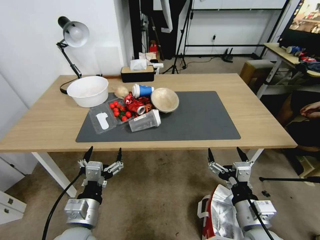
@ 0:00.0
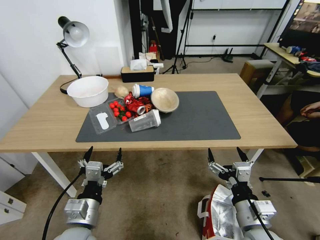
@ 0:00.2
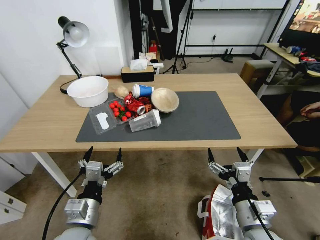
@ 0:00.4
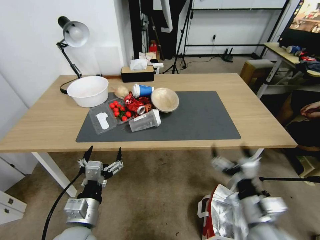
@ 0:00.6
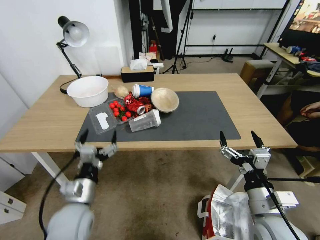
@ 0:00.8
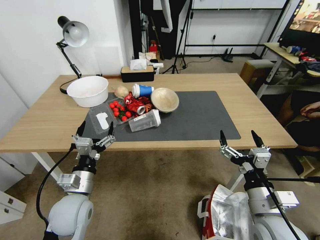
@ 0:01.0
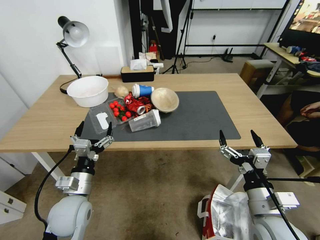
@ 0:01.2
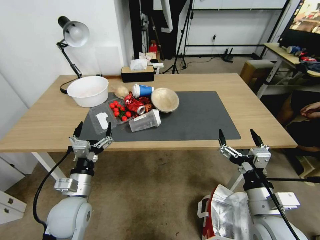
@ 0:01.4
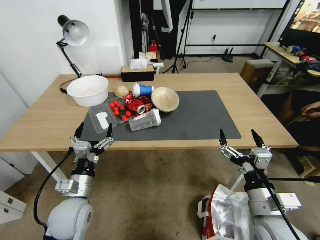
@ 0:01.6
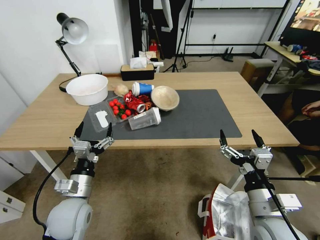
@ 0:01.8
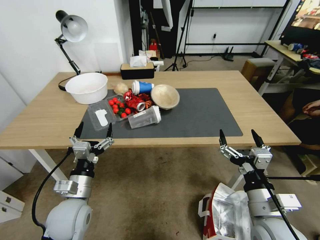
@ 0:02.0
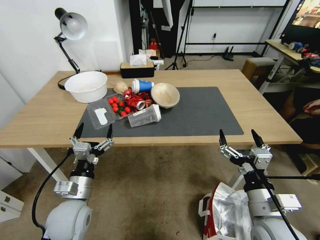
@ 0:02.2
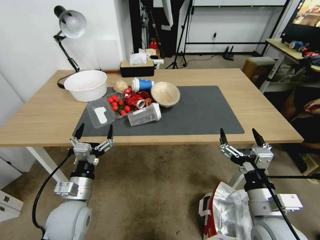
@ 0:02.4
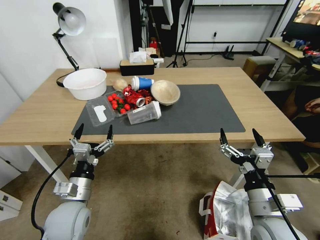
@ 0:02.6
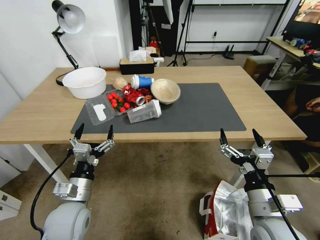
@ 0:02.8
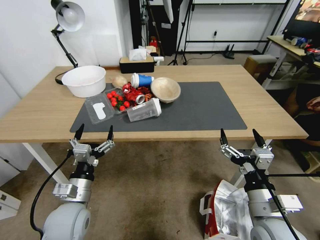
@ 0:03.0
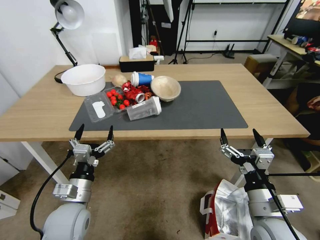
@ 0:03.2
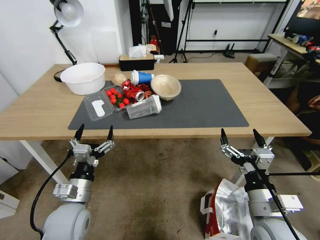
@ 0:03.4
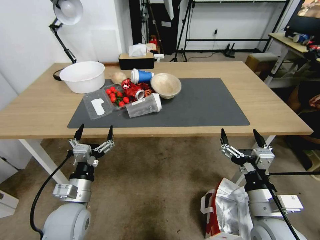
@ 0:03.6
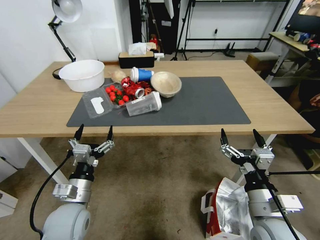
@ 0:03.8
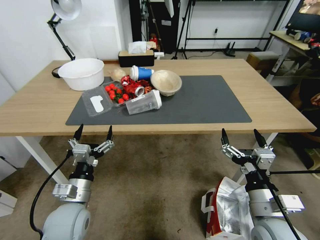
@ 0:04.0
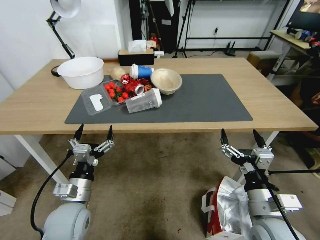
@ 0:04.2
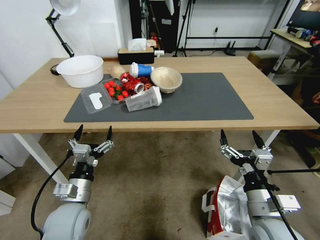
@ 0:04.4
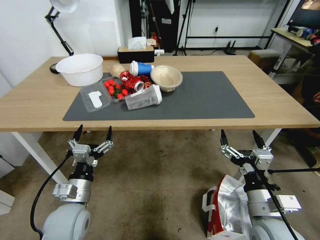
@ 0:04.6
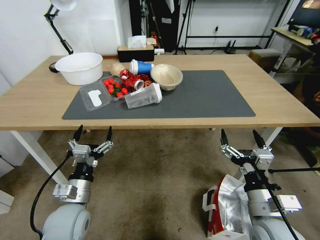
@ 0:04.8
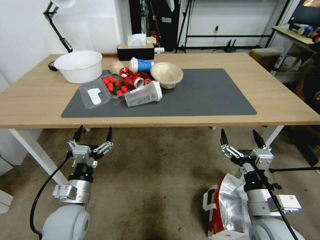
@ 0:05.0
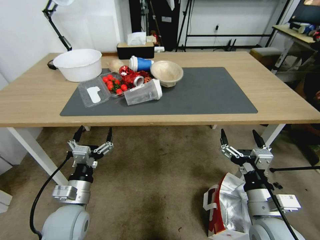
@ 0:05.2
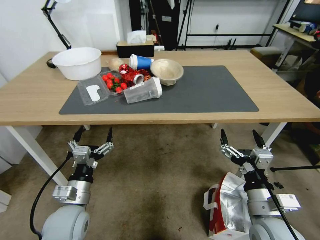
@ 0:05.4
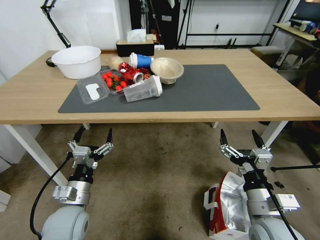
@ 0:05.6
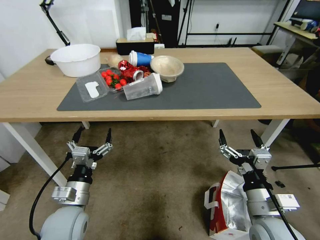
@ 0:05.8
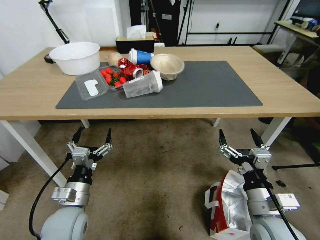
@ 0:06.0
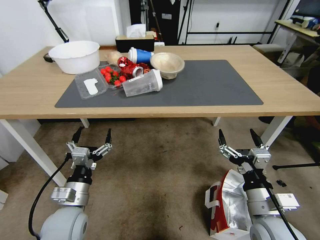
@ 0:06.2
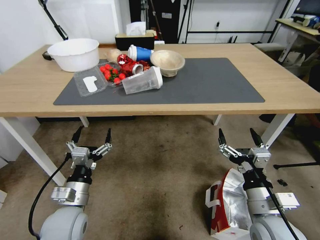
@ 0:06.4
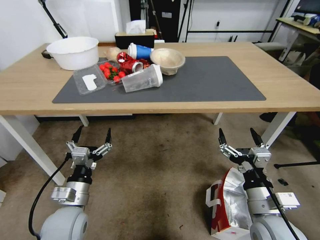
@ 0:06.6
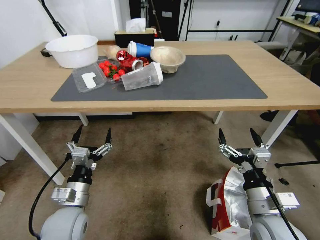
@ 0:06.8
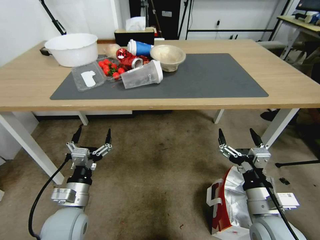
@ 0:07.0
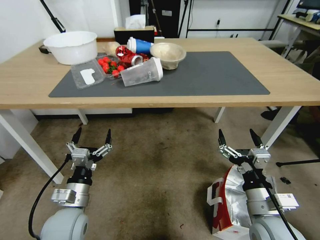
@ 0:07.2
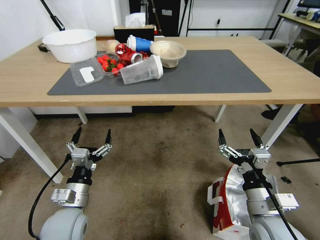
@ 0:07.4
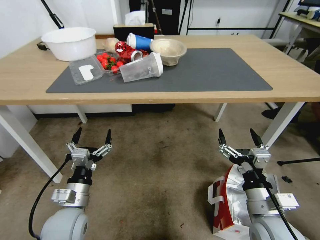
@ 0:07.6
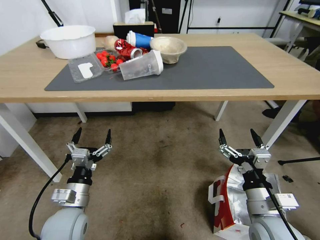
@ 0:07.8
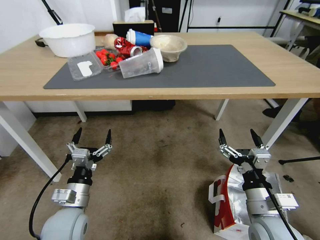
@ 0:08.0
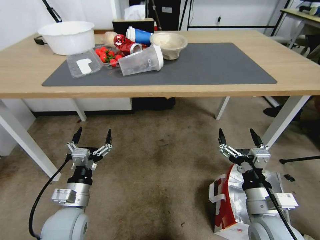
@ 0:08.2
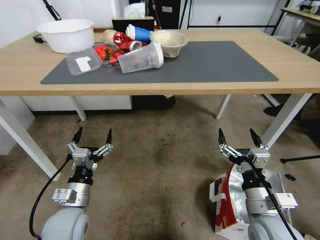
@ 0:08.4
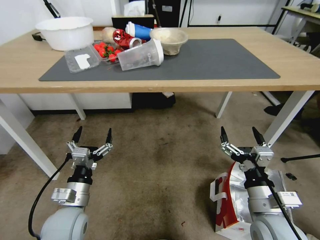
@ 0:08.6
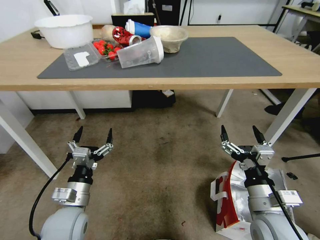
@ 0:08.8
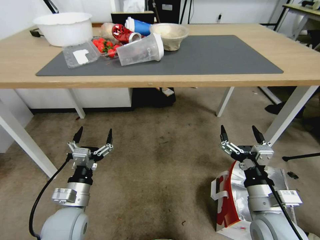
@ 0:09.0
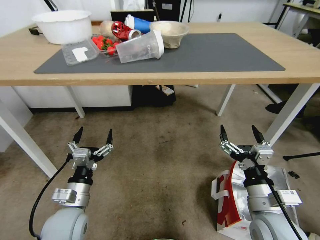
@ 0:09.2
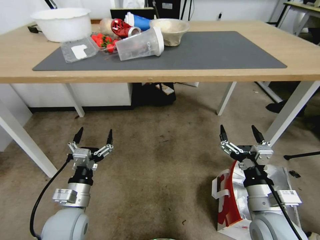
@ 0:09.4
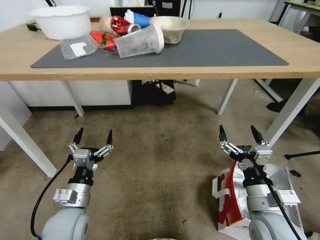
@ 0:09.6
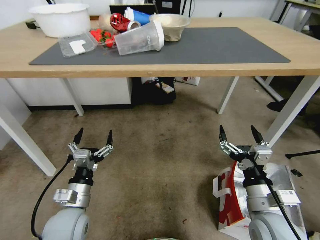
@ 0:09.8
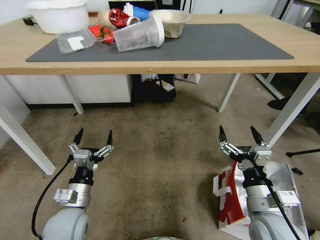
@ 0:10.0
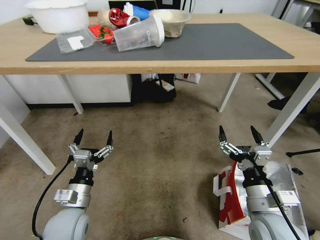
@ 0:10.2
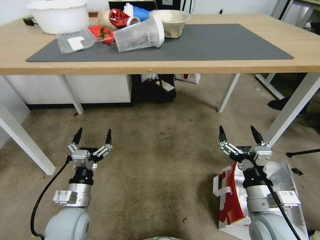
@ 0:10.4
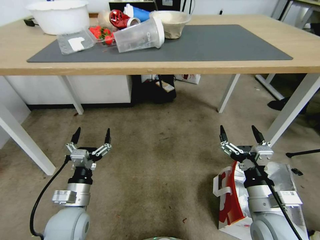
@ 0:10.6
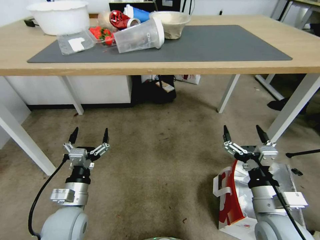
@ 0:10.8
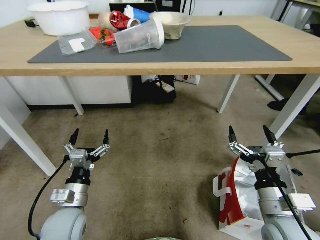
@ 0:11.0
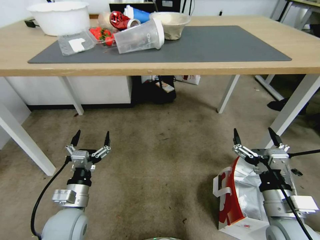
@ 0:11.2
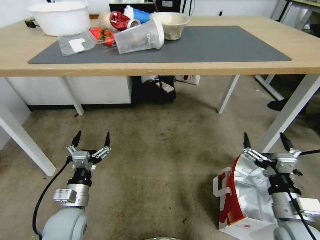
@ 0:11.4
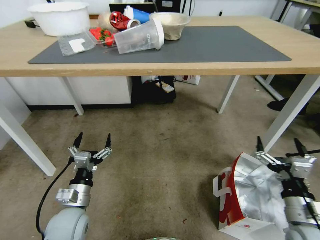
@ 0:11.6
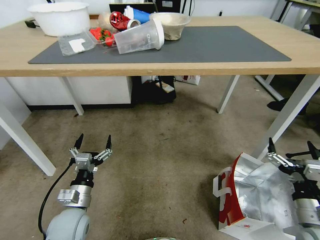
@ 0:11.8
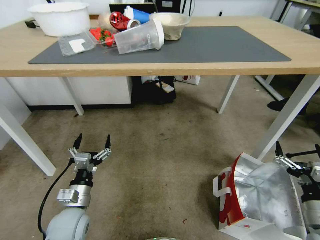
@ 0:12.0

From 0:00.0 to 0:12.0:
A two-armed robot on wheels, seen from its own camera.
Task of the whole recording: Pick up the food delivery bag from the floor and place it on the table.
From 0:10.4 to 0:12.0: The right gripper goes about 15 cm to the right.

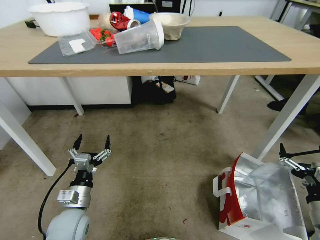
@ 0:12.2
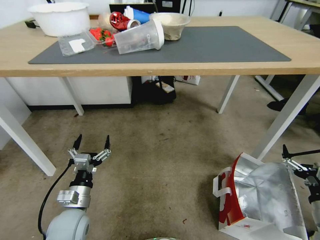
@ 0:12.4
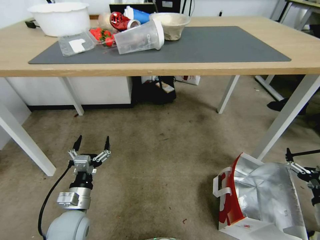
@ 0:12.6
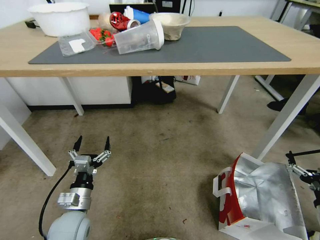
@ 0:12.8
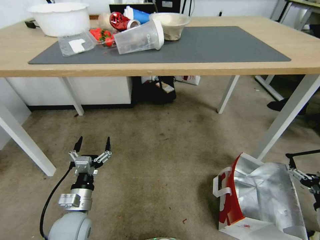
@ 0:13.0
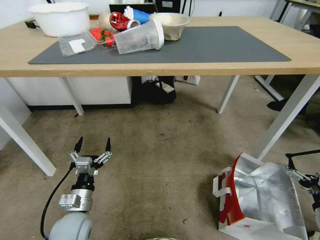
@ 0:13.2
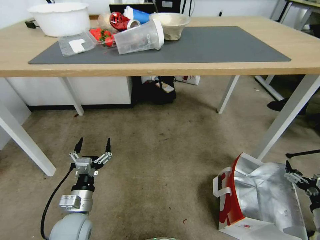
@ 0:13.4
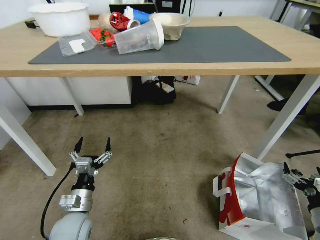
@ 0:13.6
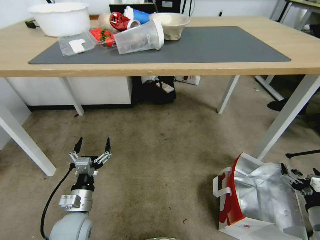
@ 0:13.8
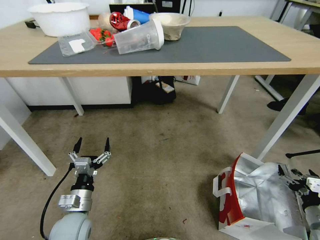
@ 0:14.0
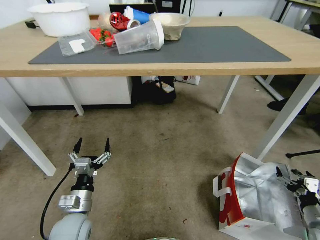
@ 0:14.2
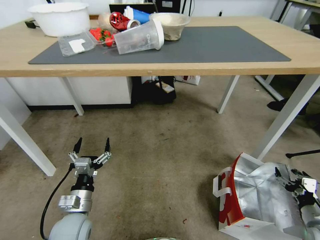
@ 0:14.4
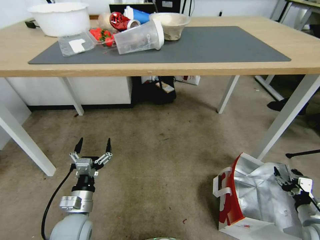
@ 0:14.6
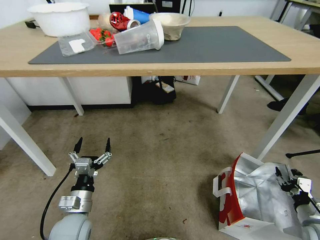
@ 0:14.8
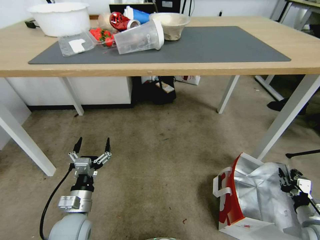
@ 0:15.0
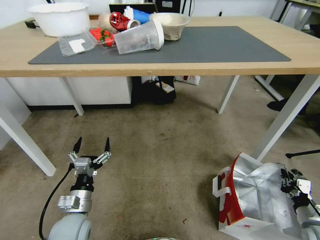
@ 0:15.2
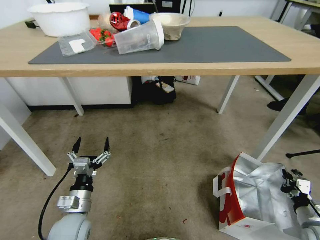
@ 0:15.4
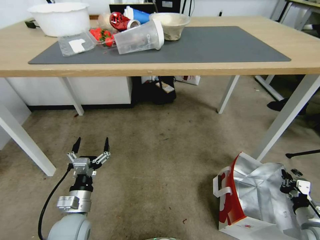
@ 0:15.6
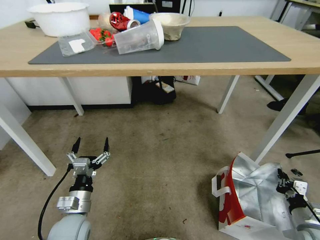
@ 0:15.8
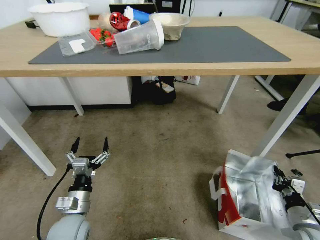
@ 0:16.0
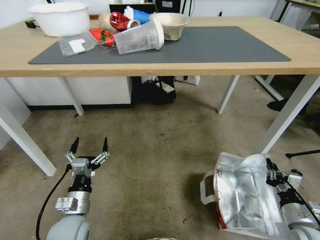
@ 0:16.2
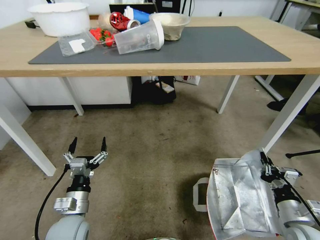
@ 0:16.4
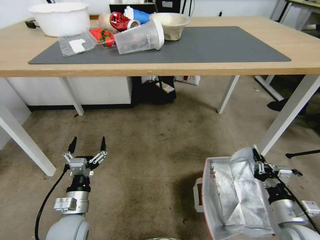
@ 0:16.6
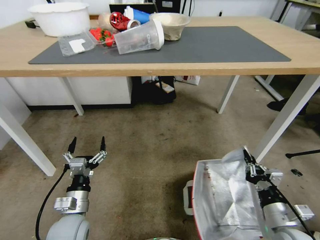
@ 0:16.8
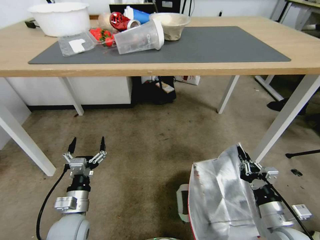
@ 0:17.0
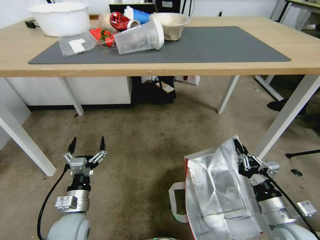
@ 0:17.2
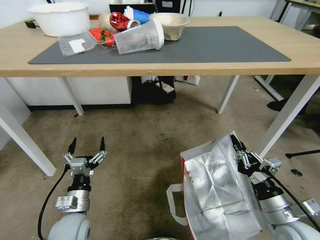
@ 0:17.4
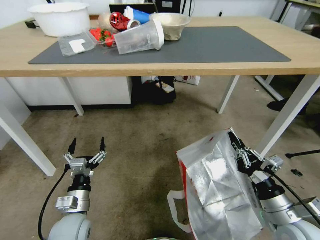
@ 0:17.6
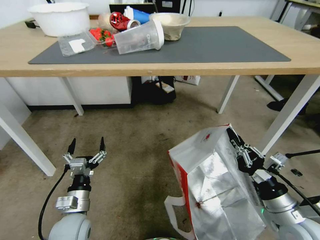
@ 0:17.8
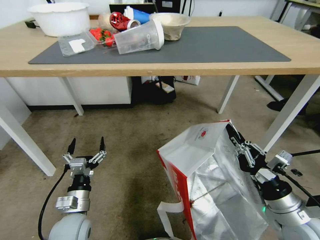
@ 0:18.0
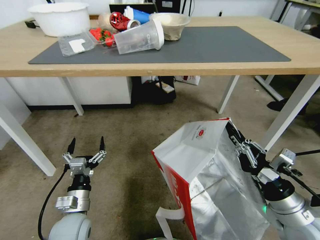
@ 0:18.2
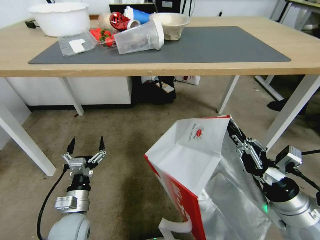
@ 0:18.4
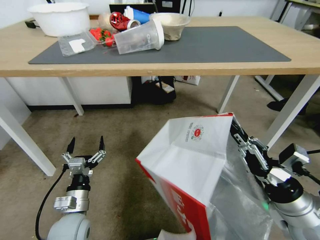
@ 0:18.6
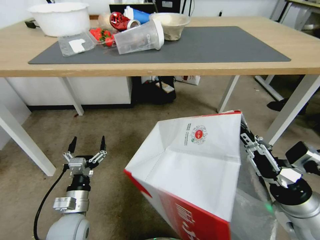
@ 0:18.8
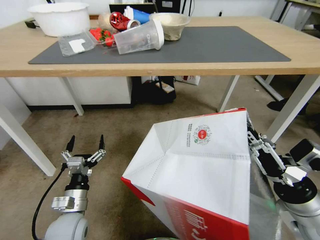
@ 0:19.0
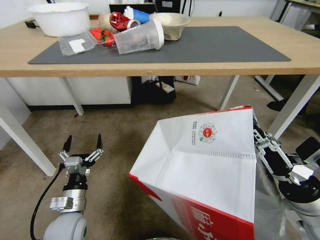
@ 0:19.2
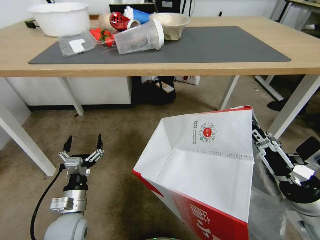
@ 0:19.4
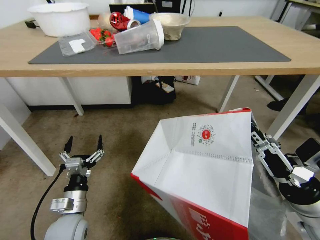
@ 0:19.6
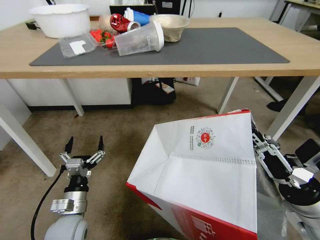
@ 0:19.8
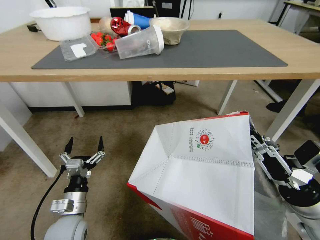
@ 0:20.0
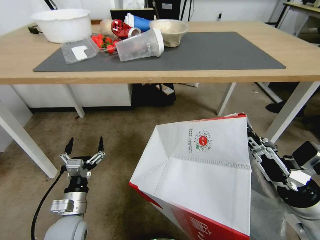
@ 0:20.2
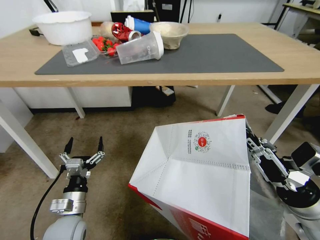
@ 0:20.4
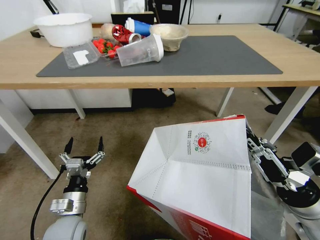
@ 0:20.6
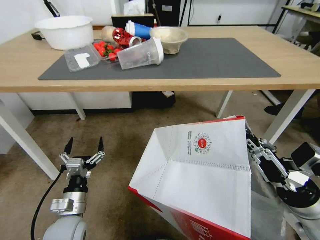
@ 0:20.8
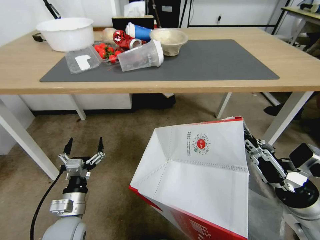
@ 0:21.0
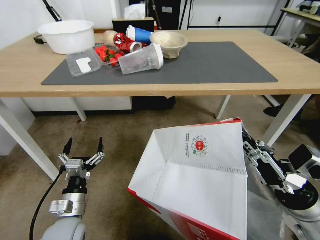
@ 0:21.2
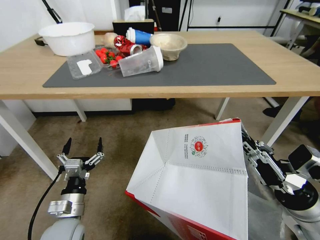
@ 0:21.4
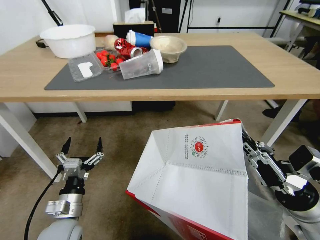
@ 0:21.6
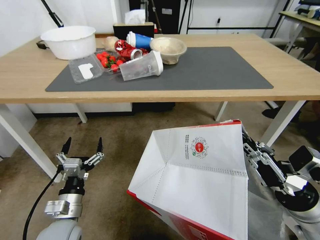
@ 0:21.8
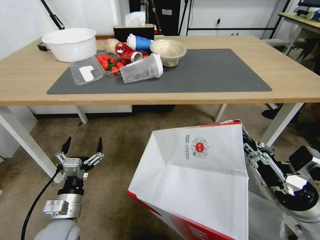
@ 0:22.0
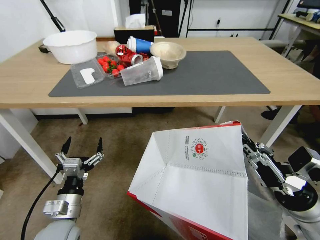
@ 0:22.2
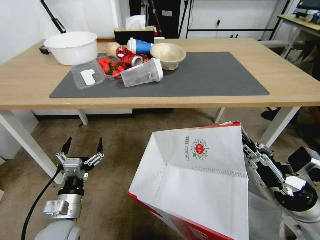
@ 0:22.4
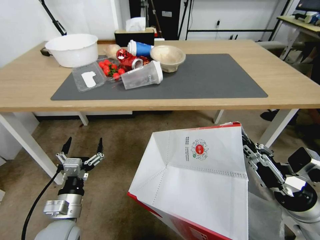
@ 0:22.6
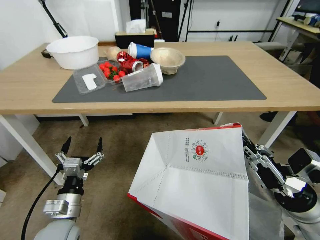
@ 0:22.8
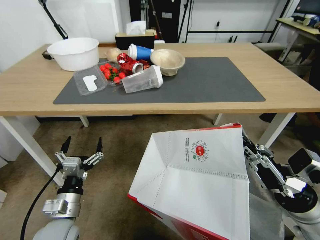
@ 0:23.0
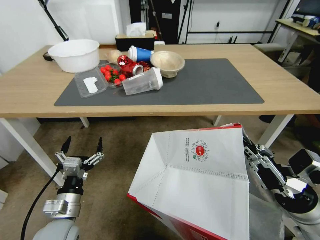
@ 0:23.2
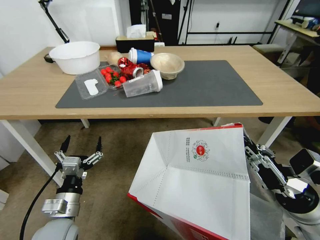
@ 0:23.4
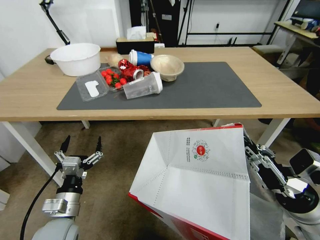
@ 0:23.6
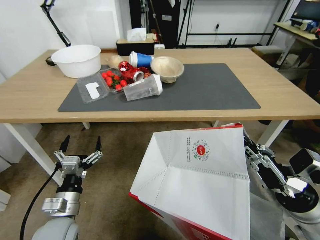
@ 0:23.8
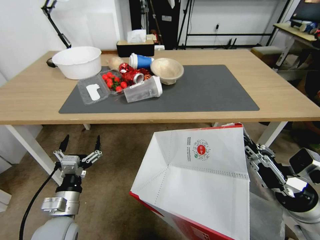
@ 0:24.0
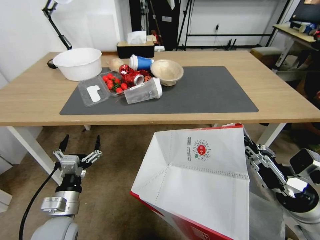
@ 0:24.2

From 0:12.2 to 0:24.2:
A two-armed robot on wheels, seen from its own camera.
Task of the whole recording: Pick up the food delivery bag from the floor and place it on the table.
From 0:12.2 to 0:13.8: The right gripper moves downward and to the right, about 10 cm.
From 0:13.8 to 0:15.2: The right gripper closes up.
From 0:15.2 to 0:16.6: The right gripper moves to the left and upward, some 10 cm.
From 0:16.6 to 0:18.2: The right gripper shifts approximately 10 cm upward and to the left.
